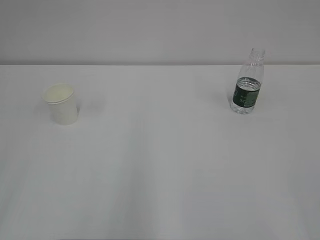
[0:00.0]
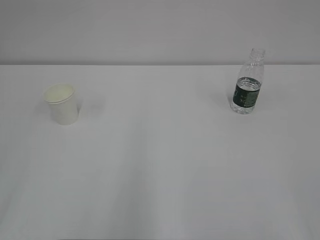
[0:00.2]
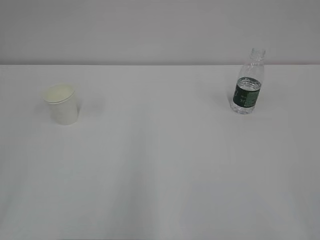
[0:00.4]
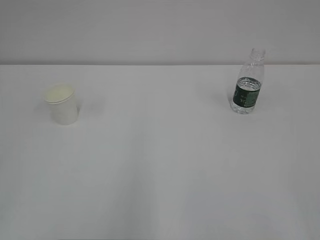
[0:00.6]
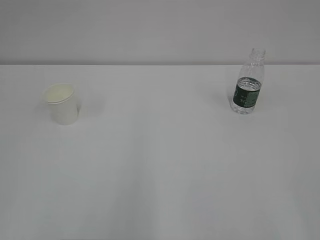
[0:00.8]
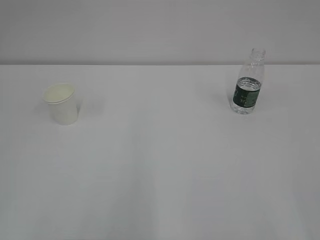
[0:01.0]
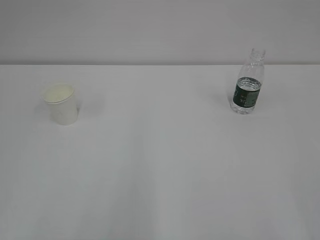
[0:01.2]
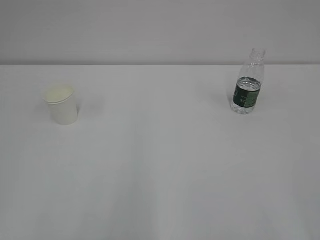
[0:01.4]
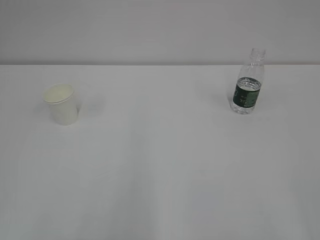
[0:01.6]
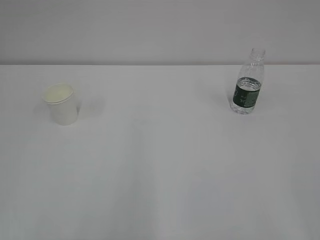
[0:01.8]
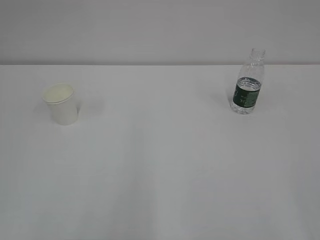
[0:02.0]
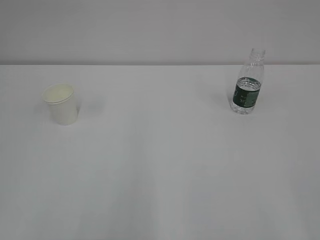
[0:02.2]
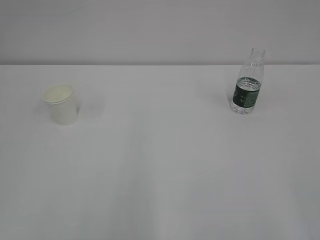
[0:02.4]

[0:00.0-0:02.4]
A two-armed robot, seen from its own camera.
0:01.2 to 0:02.4: Both grippers stay put.

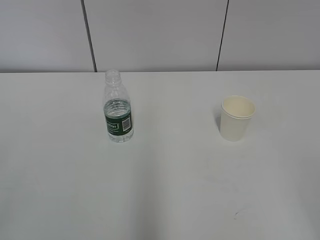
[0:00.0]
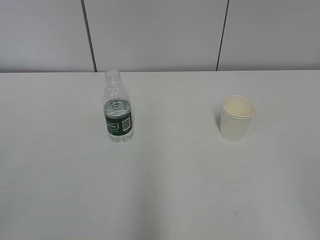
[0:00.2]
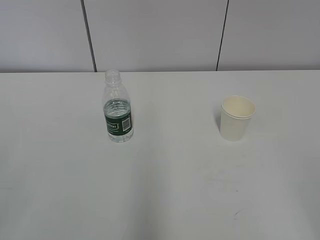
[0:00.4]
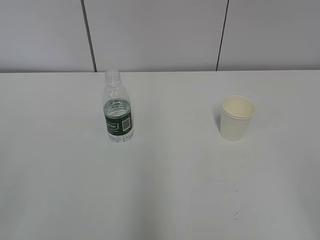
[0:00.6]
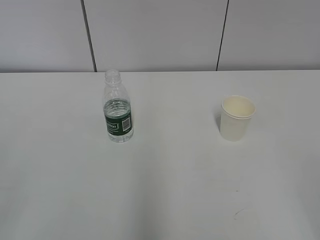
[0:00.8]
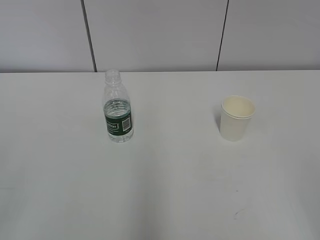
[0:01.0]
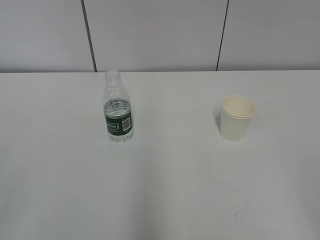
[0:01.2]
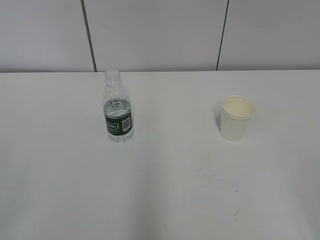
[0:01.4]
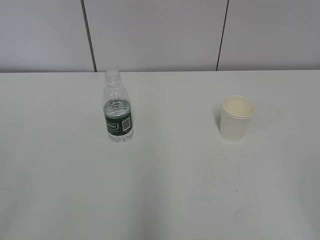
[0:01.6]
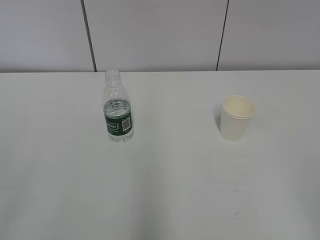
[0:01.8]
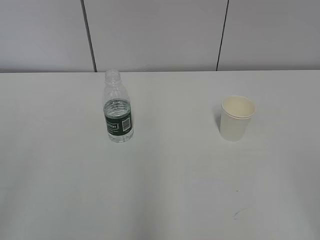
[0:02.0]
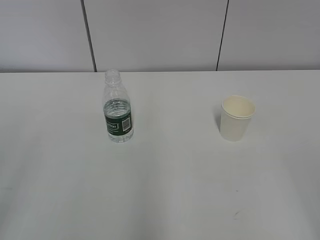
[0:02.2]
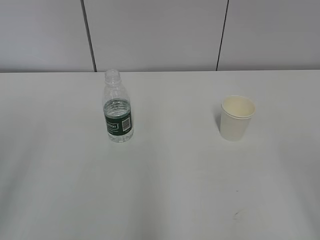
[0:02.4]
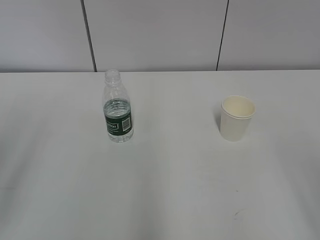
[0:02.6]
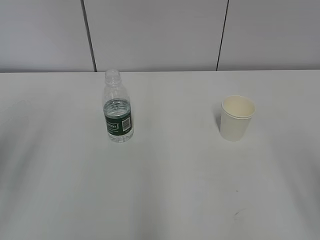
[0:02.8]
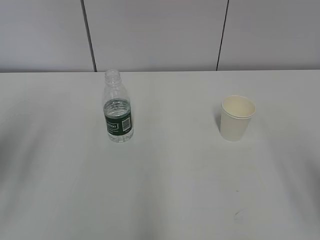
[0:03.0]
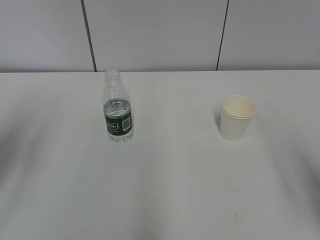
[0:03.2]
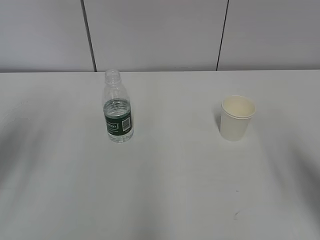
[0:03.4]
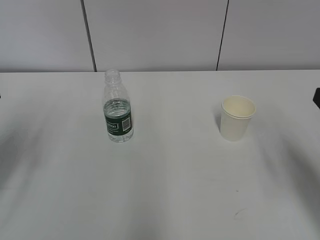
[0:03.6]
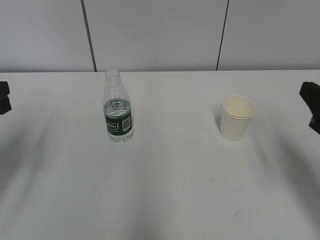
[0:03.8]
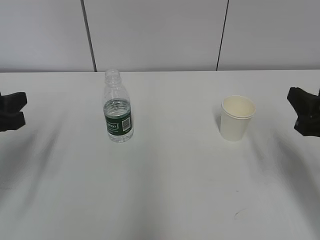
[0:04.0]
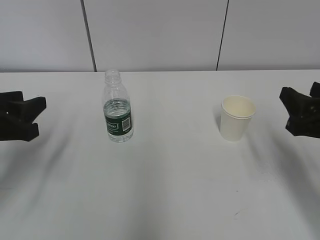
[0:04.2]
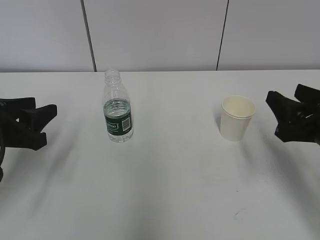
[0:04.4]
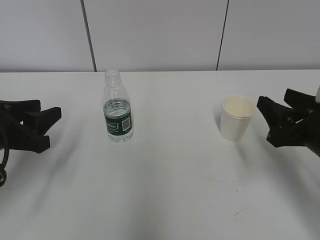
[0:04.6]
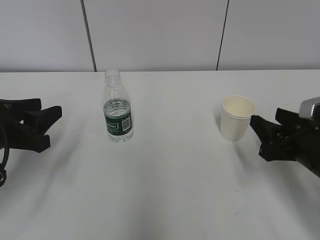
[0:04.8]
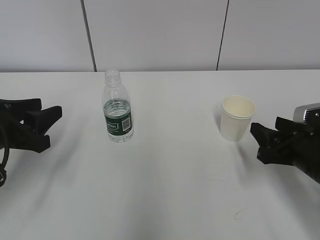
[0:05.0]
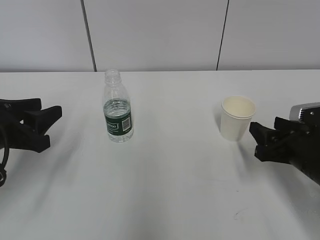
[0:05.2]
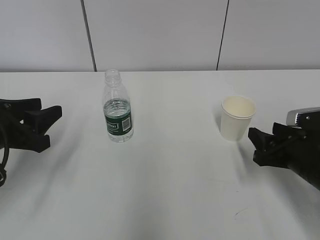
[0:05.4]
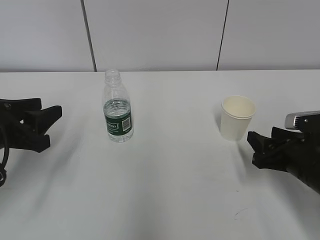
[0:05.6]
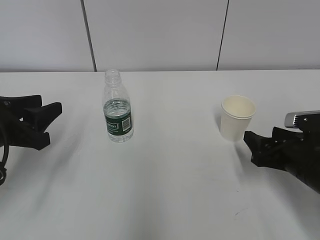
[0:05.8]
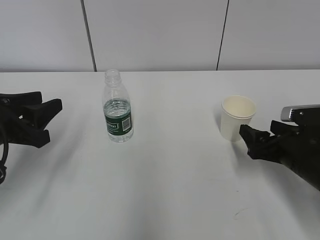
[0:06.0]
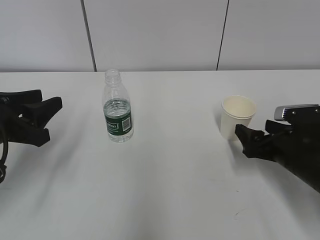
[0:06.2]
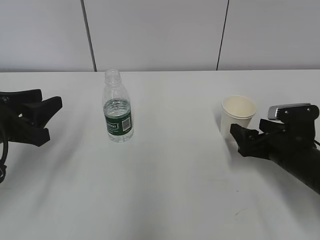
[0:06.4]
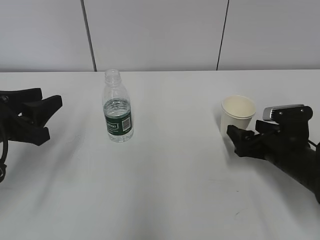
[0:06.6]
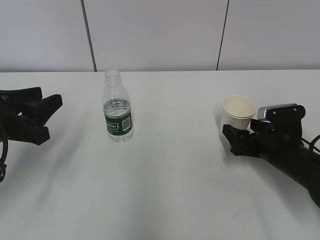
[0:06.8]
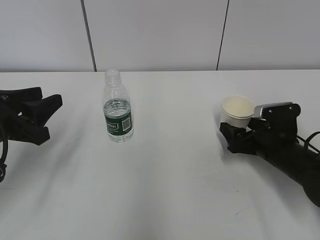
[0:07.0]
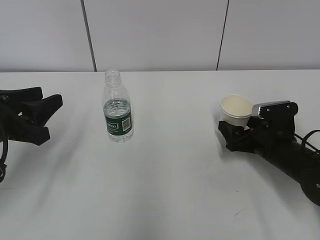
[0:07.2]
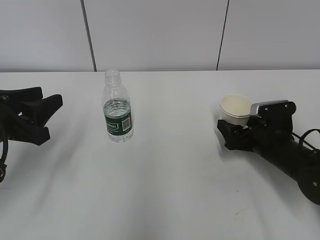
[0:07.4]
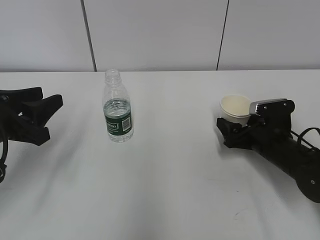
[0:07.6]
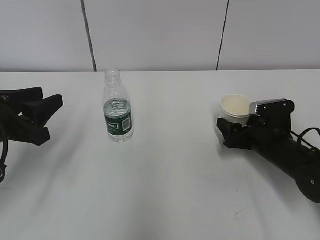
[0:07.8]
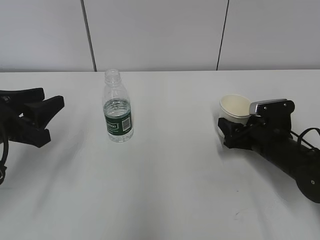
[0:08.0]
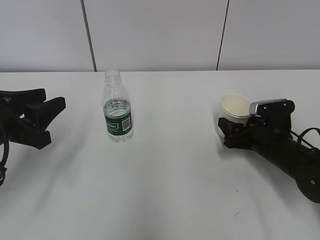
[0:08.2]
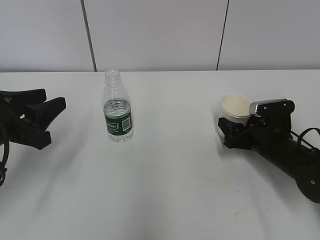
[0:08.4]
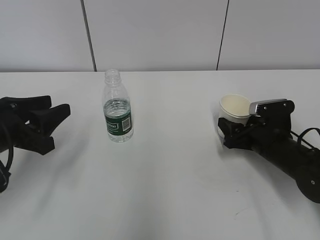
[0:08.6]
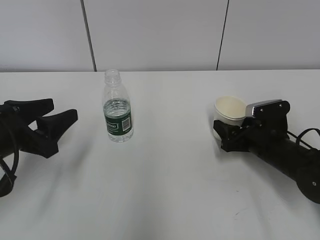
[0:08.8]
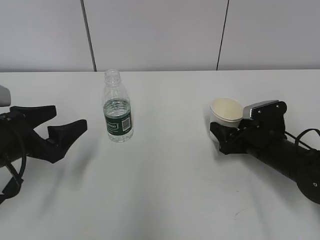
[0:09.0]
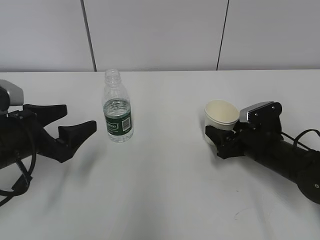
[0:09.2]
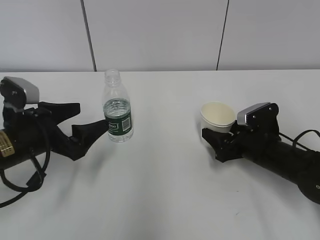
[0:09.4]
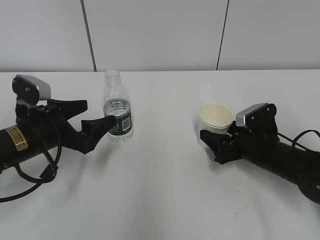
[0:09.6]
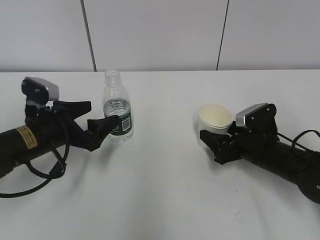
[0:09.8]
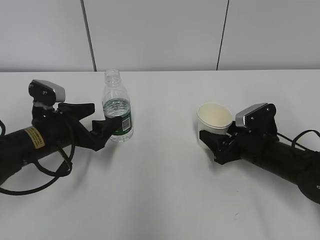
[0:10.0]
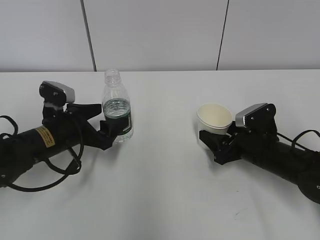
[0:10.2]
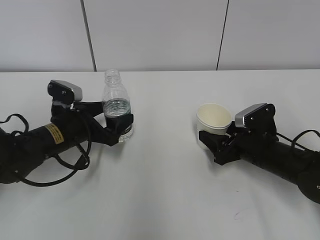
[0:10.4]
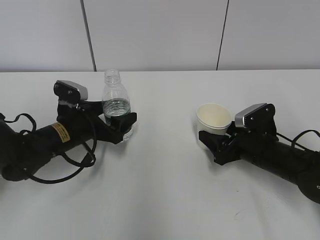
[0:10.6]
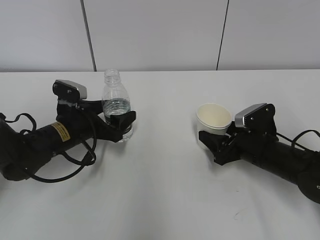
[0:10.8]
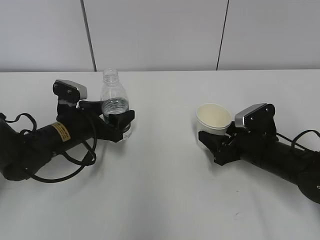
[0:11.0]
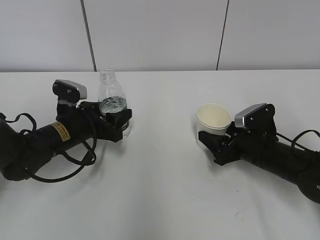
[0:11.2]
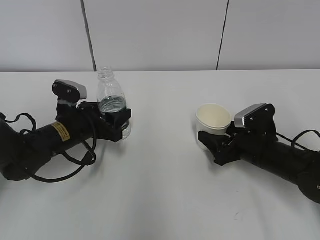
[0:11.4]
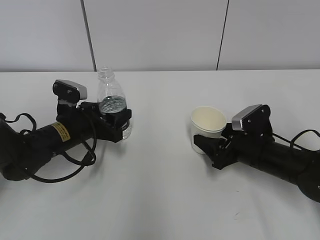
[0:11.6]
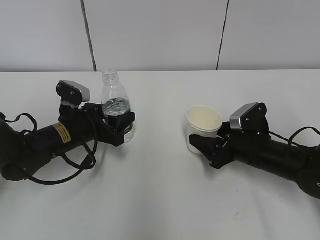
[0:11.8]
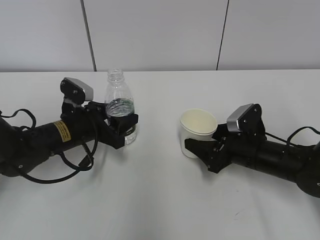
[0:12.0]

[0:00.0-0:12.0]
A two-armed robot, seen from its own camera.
Step, 0:00.0 to 0:06.6: Grab the paper cup with the right hand.
Step, 0:06.8 to 0:09.2: Grab the water bottle with the left hand.
0:01.6 to 0:03.0: The left gripper heads forward, covering about 20 cm.
0:03.0 to 0:04.4: The left gripper shifts some 15 cm downward and forward, while the right gripper is displaced forward and downward by approximately 15 cm.
0:04.4 to 0:06.0: The right gripper moves downward, approximately 10 cm, and opens.
0:06.0 to 0:07.6: The right gripper shifts approximately 5 cm forward.
0:07.6 to 0:09.0: The right gripper closes its fingers. The left gripper opens up.
0:09.0 to 0:10.4: The left gripper shifts roughly 10 cm forward, to the right and downward.
0:10.4 to 0:12.0: The left gripper closes its fingers.

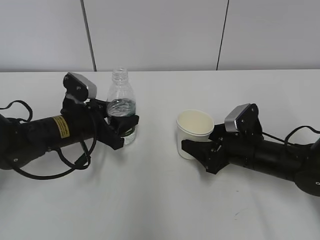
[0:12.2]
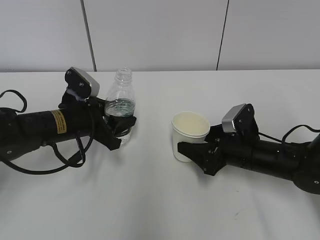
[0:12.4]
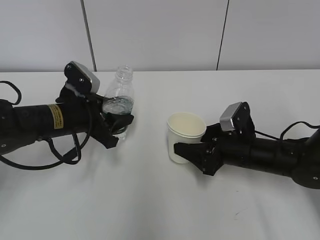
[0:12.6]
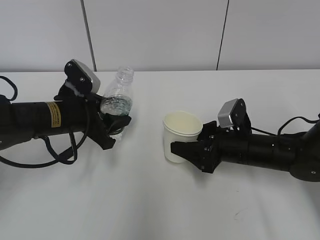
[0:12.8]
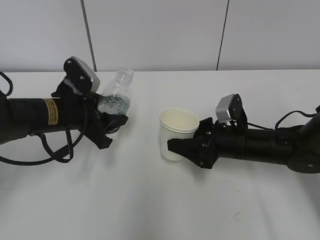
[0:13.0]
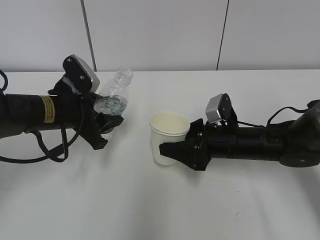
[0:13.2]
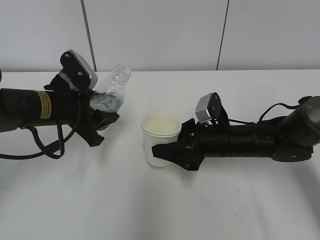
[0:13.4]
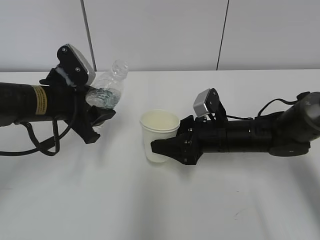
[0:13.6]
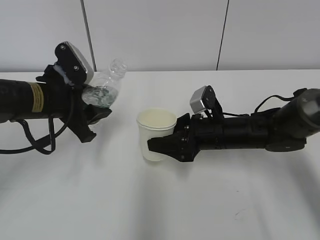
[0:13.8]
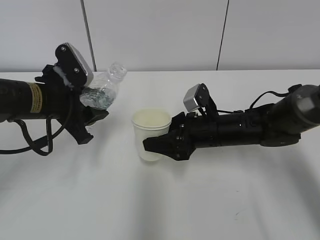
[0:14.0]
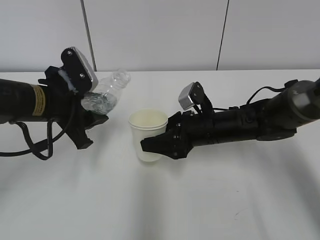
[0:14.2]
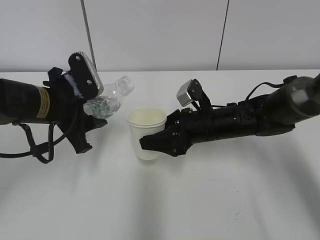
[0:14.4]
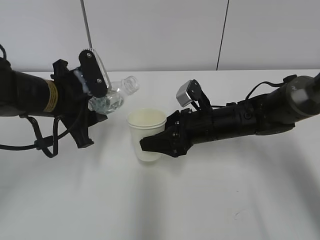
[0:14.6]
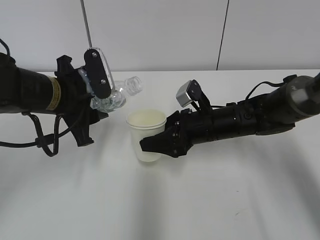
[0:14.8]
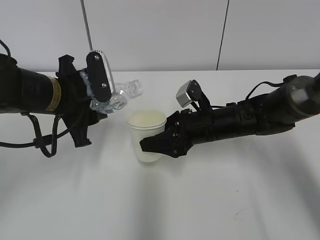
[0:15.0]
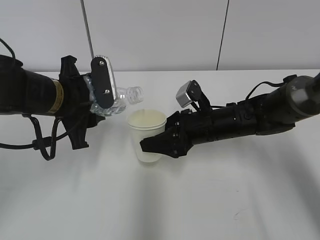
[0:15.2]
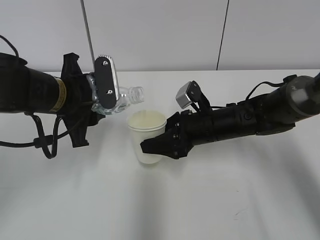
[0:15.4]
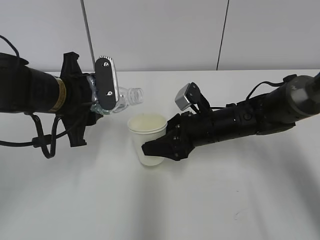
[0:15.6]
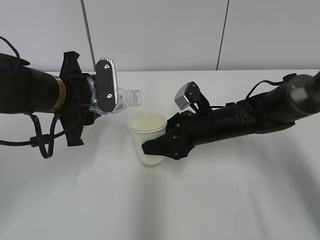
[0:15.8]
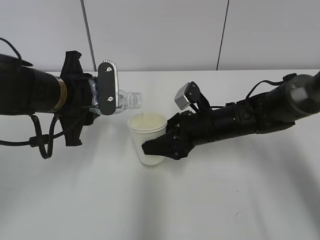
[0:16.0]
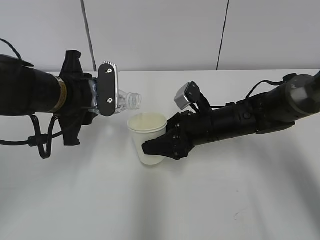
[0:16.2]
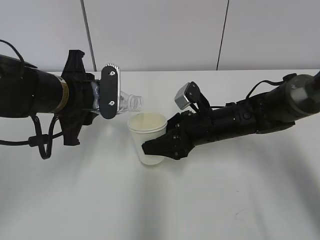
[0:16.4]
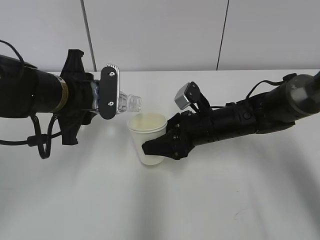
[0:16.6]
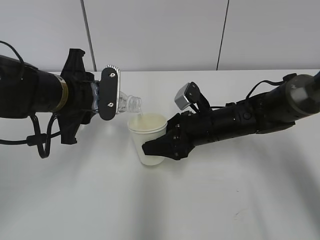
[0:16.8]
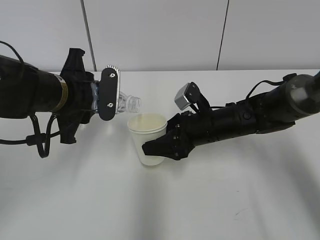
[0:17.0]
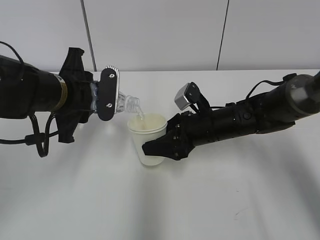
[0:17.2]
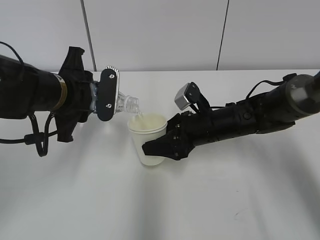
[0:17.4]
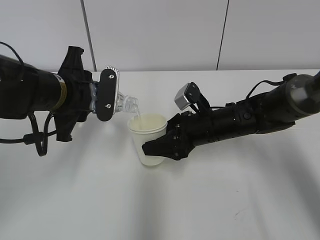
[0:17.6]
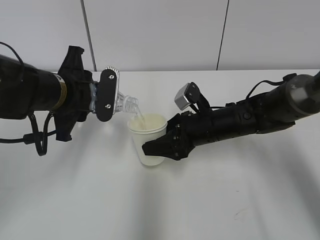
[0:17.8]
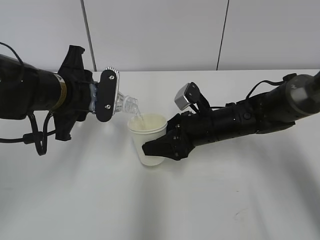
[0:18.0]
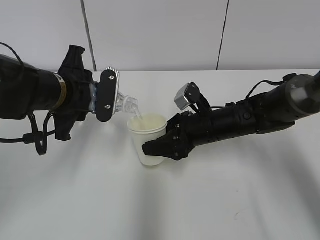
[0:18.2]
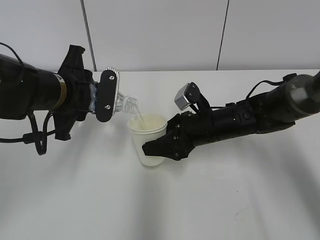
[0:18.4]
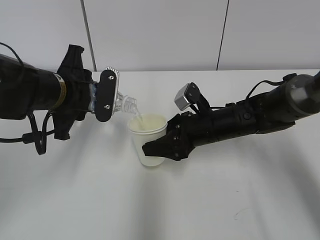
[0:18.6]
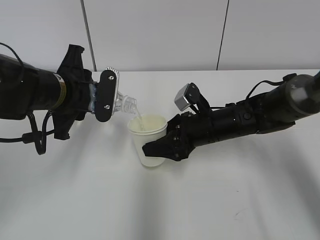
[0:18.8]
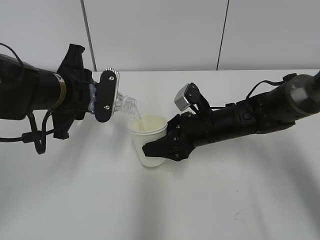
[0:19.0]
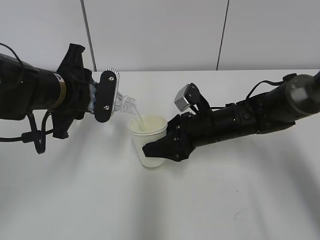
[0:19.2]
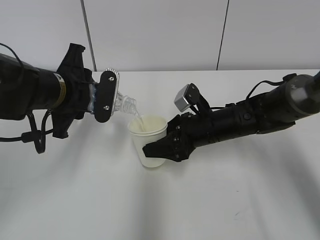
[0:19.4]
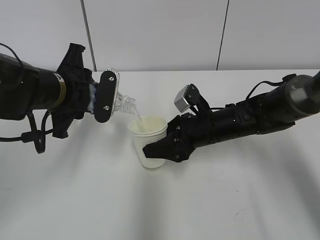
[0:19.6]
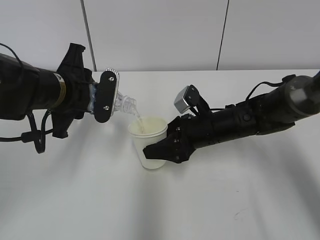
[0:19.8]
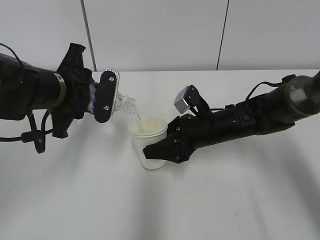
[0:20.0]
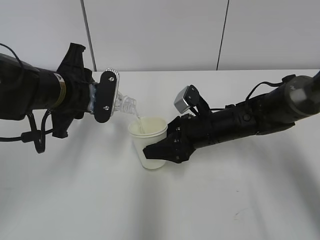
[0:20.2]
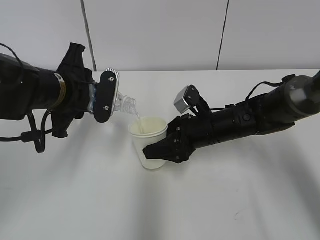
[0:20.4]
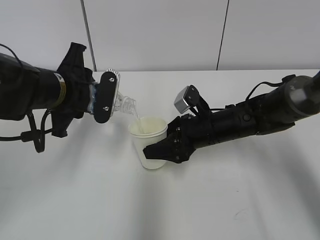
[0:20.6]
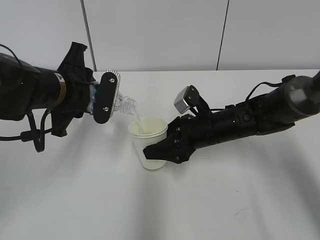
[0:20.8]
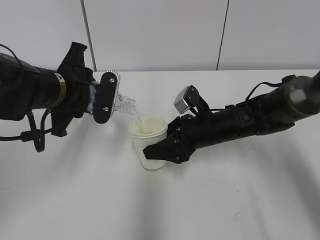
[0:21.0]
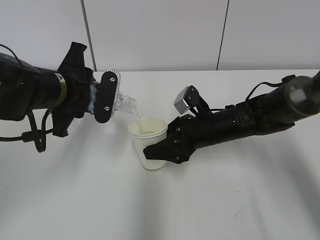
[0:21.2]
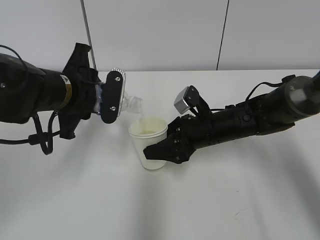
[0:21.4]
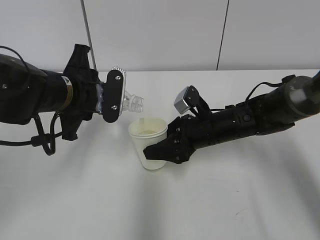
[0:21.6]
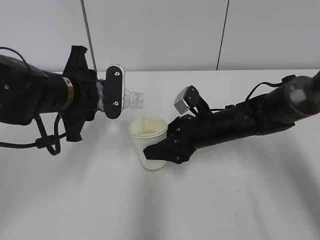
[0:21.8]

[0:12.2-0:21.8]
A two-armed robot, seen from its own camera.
Step, 0:14.0 to 0:18.2: Fill water with the right hand.
Step, 0:14.0 to 0:18.2: Pour water with the left hand.
0:12.2 to 0:13.8: The left gripper travels upward by about 10 cm. The right gripper travels to the left by some 5 cm.
0:15.4 to 0:17.0: The grippers move only a little.
0:17.0 to 0:18.6: The grippers stay close to where they were, moving slightly.
0:18.6 to 0:20.2: The two grippers keep their place.
0:20.2 to 0:21.8: There are only small adjustments of the grippers.
